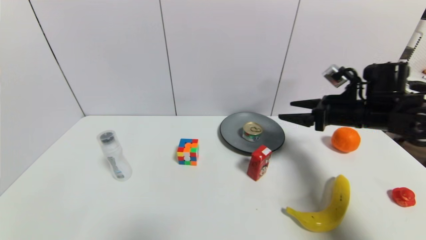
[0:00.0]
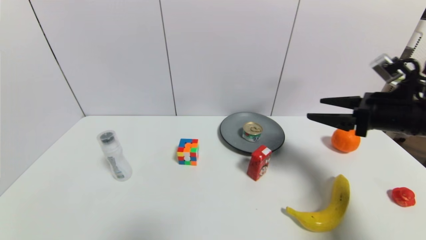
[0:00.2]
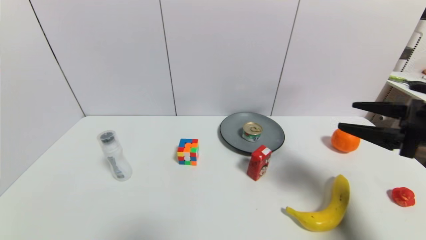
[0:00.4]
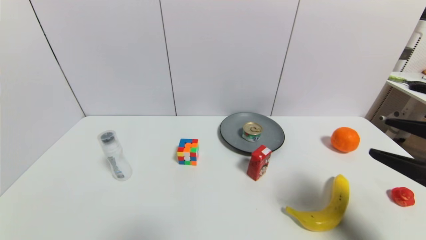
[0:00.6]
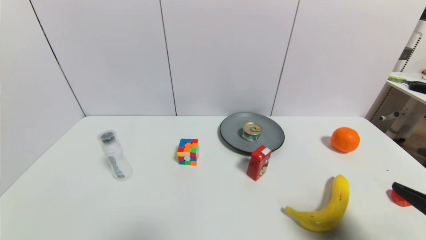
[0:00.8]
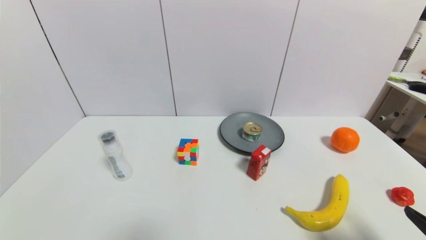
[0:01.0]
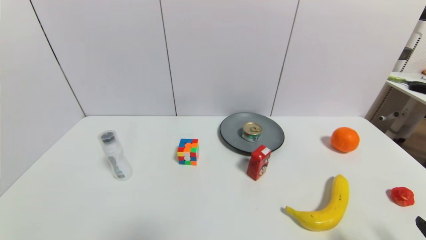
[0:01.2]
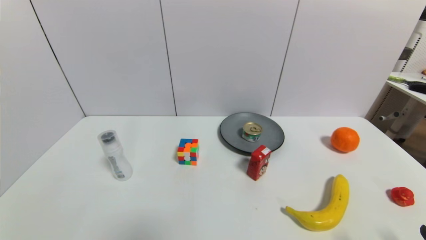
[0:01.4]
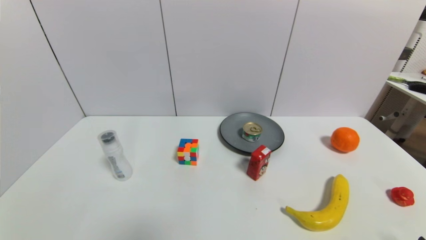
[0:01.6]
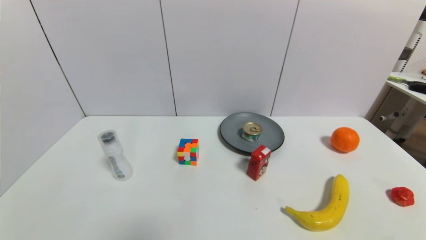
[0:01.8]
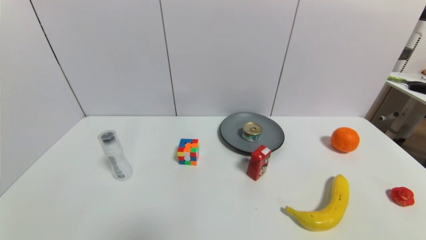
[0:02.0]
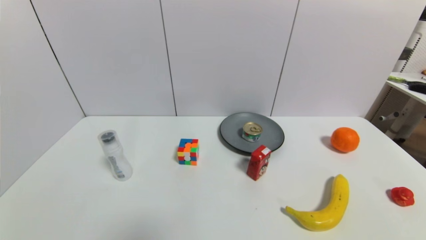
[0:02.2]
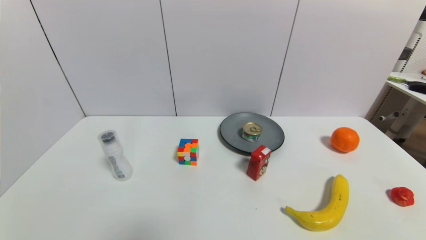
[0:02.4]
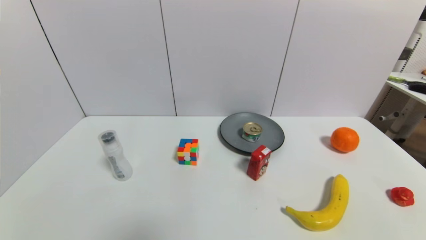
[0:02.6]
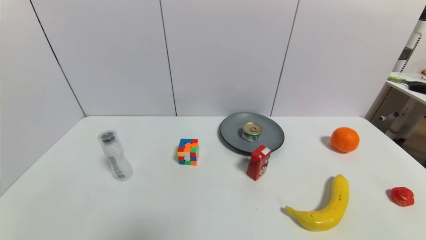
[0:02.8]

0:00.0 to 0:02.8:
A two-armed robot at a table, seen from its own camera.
Task of the whole recording: use a gripper to pick the target object and place on the gray plate.
0:00.0 to 0:01.4: The right gripper is displaced backward by about 30 cm.
